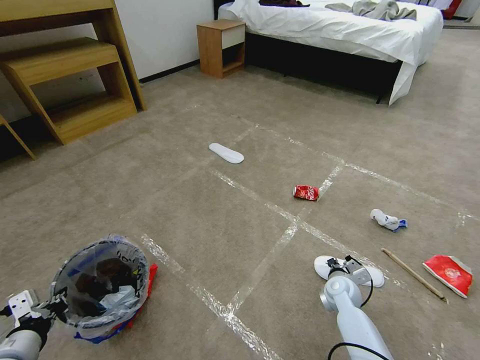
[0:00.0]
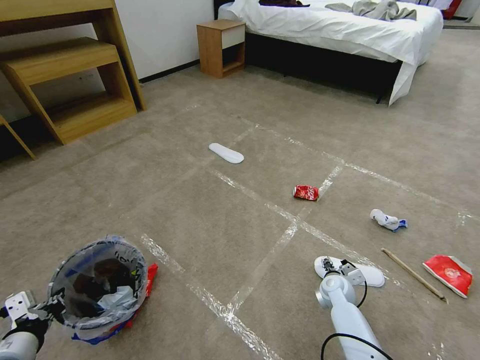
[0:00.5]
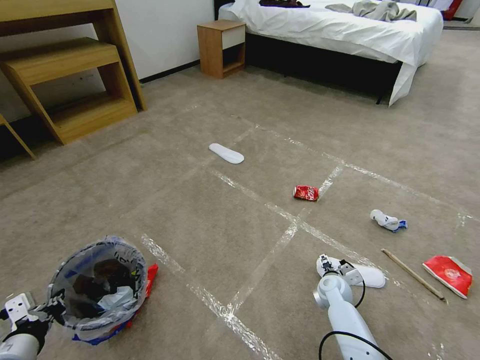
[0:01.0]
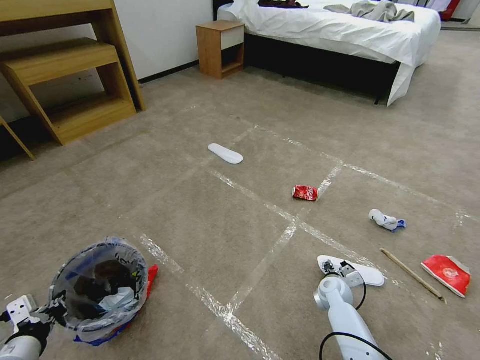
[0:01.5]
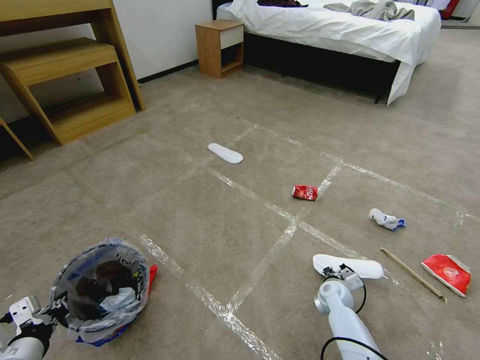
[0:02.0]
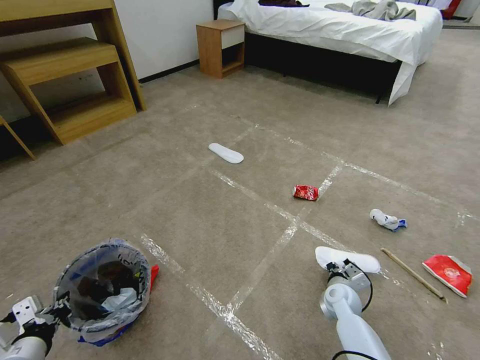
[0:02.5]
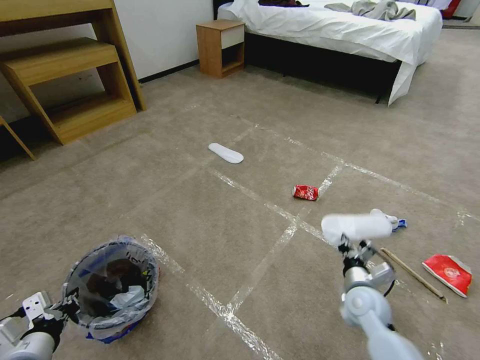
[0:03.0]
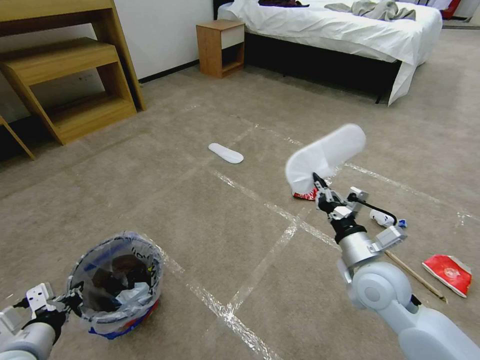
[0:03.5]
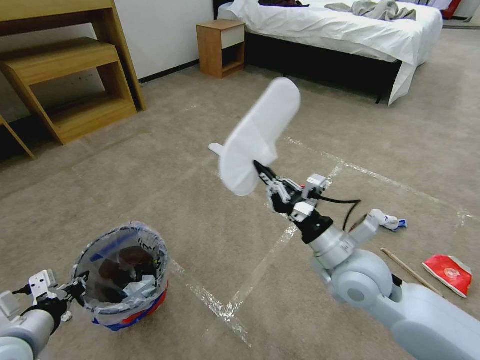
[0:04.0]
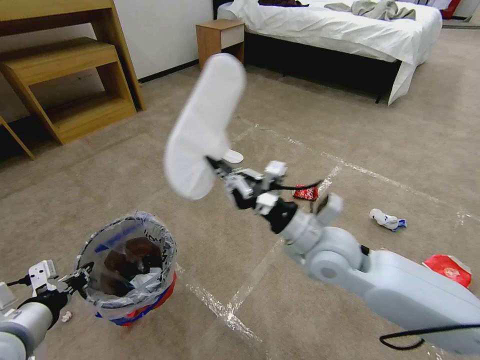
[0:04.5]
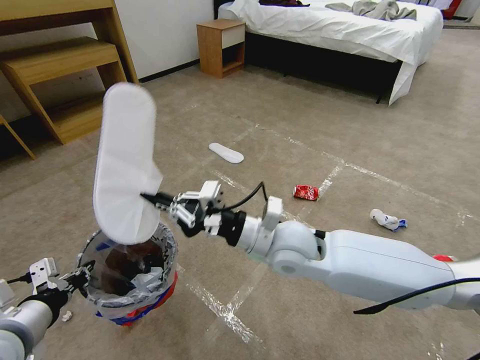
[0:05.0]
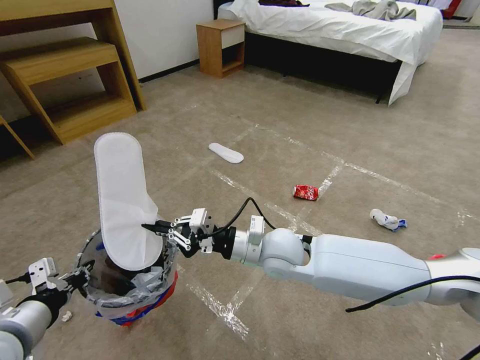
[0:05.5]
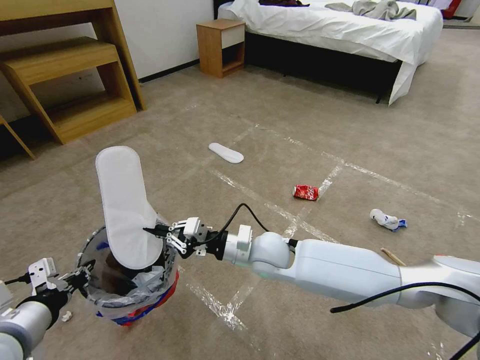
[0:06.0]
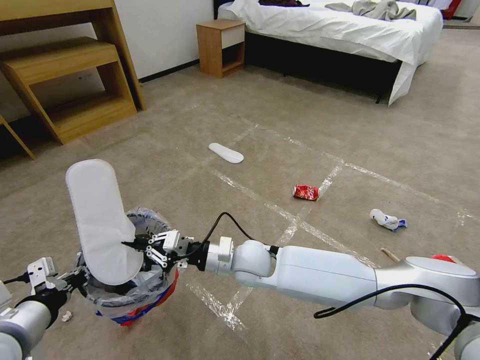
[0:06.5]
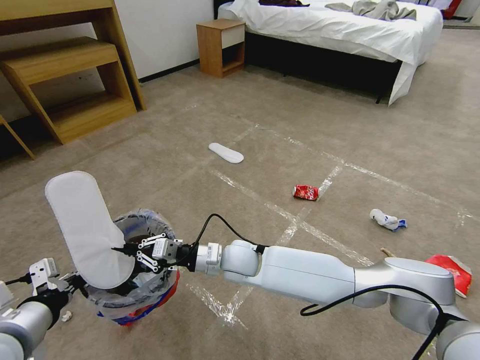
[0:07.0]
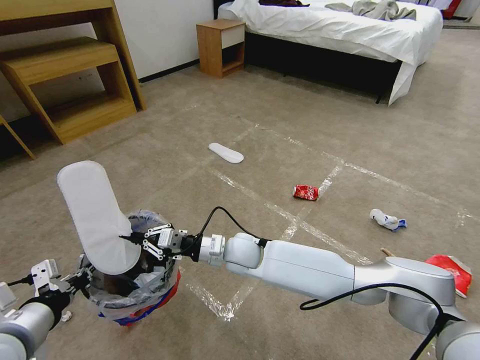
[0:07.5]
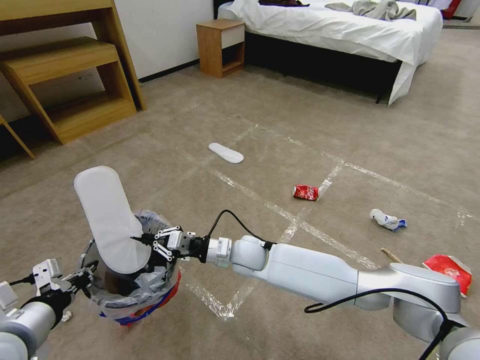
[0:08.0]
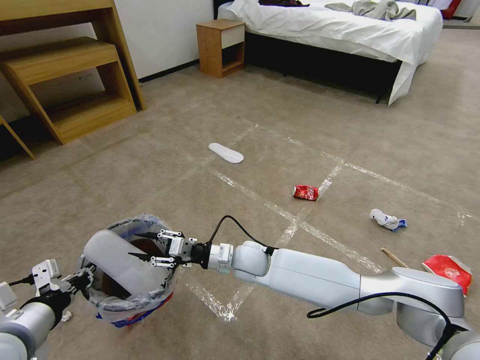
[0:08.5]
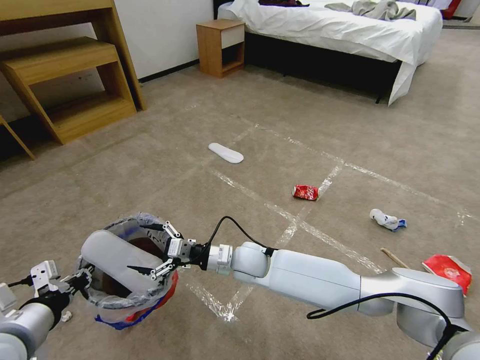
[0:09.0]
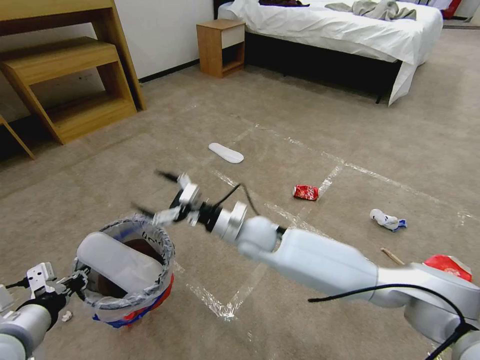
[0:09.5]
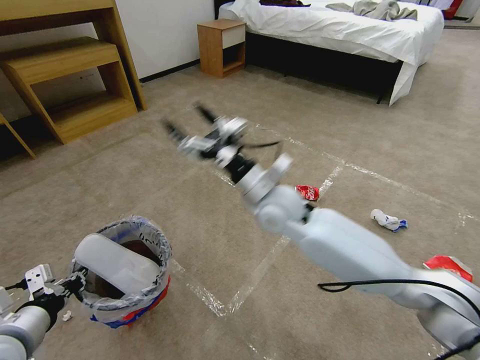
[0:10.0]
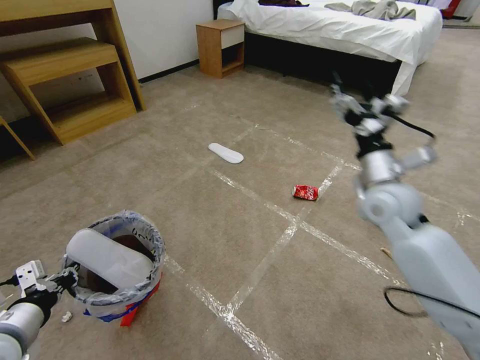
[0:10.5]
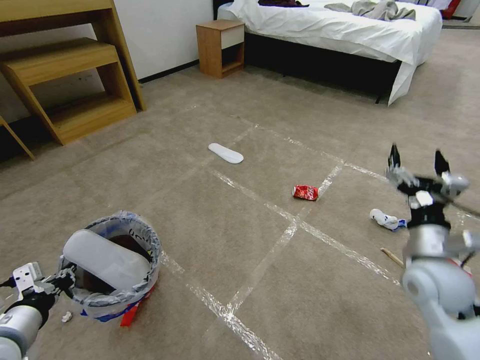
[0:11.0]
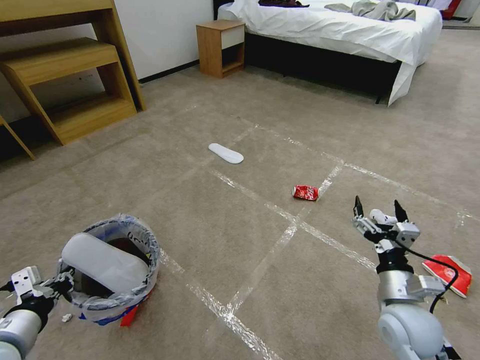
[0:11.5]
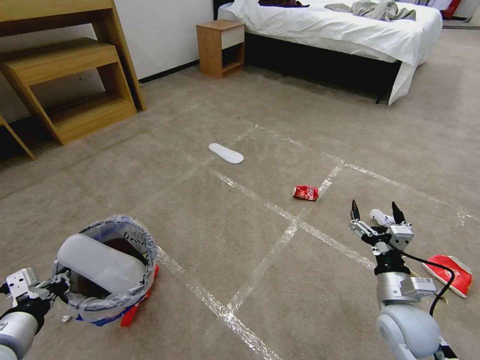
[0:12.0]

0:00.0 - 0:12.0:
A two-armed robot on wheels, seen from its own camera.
Task of the whole recording: Pick up the trash bin and place the garbage on the floor into it.
0:00.0 - 0:02.0: The right gripper opens, then closes once more.
0:02.0 - 0:04.0: The left gripper shifts some 5 cm upward. The right gripper heads upward, covering about 30 cm.
0:04.0 - 0:06.0: The right gripper moves to the left, forward and downward, some 20 cm.
0:06.0 - 0:08.0: The right gripper heads downward, covering approximately 5 cm.
0:08.0 - 0:10.0: The right gripper travels upward by some 15 cm, and opens up.
0:10.0 - 0:12.0: The right gripper heads to the right, backward and downward, covering roughly 35 cm.

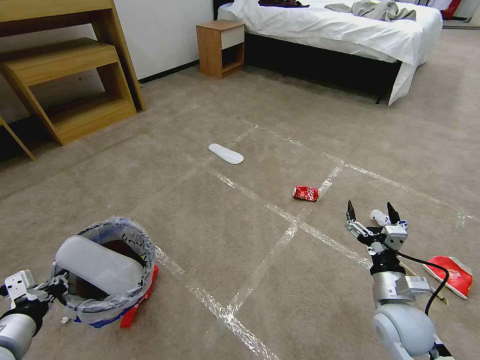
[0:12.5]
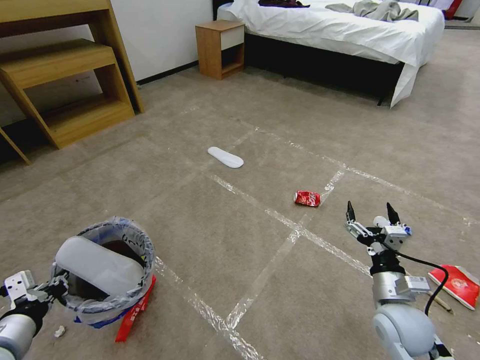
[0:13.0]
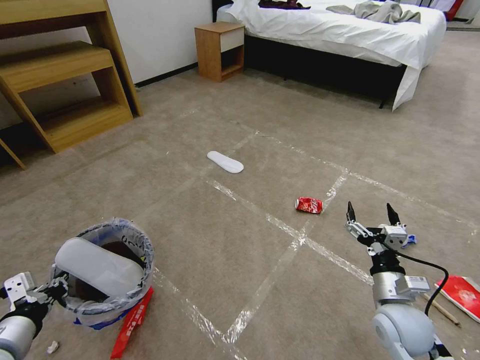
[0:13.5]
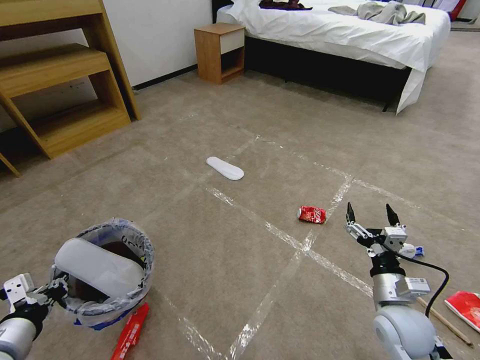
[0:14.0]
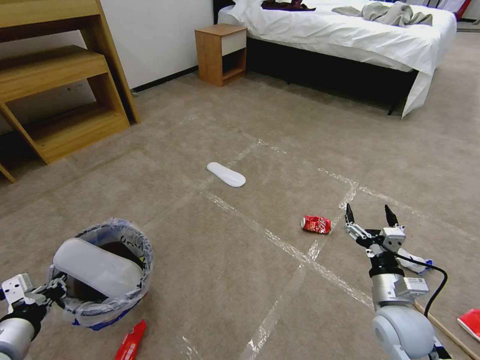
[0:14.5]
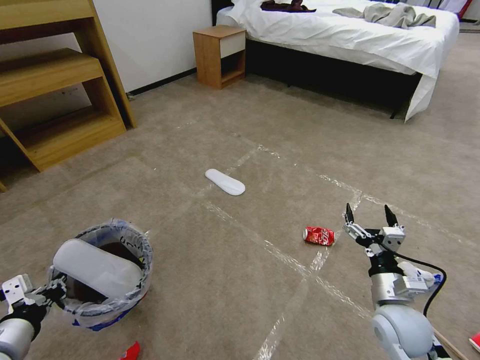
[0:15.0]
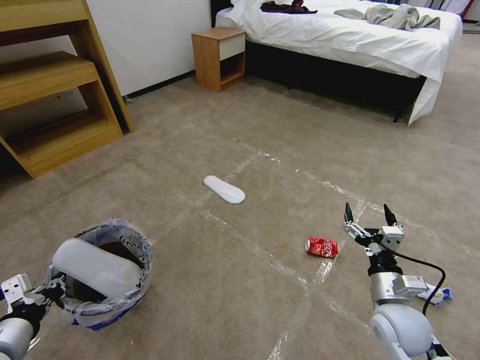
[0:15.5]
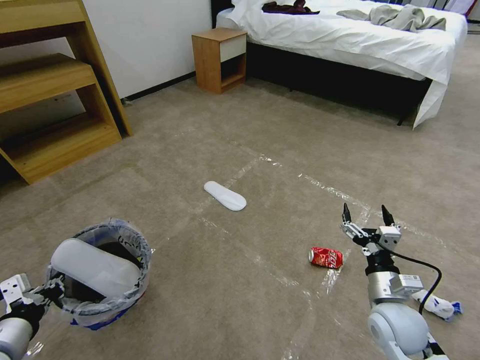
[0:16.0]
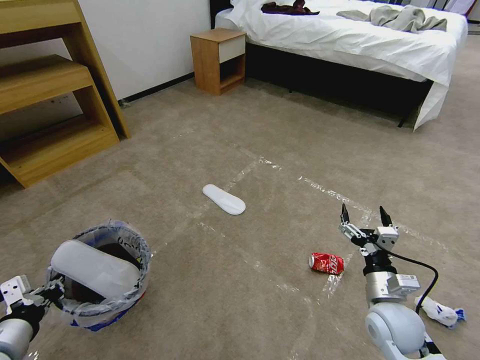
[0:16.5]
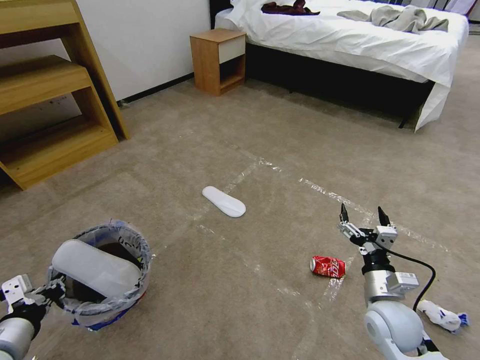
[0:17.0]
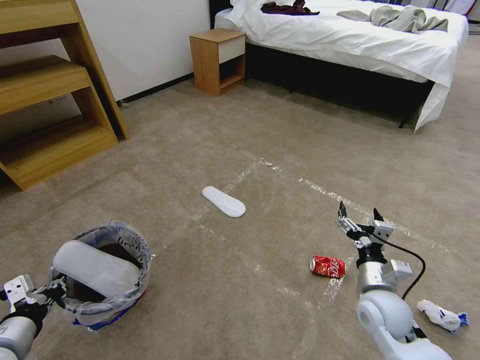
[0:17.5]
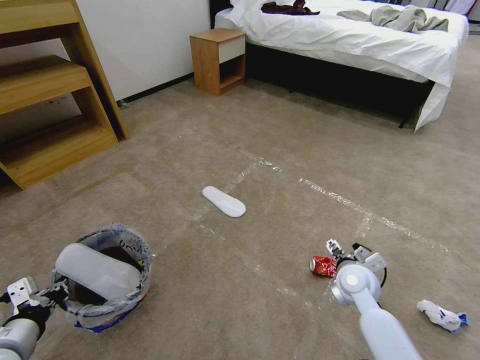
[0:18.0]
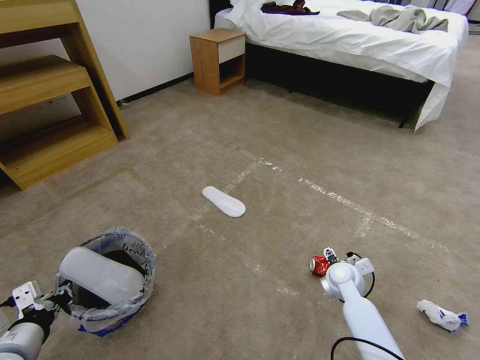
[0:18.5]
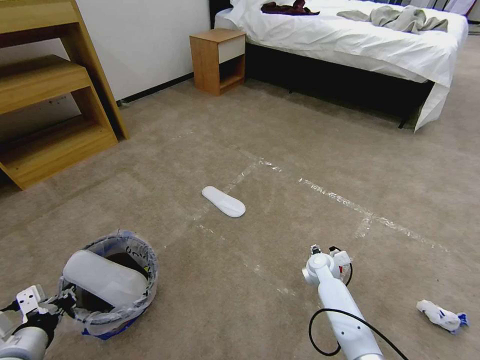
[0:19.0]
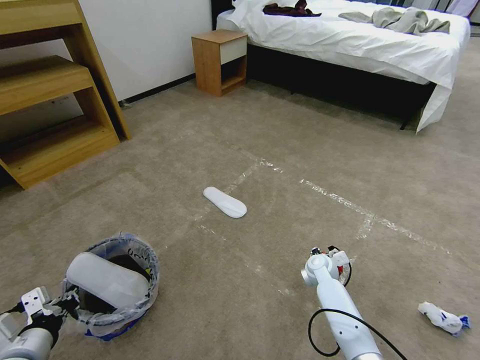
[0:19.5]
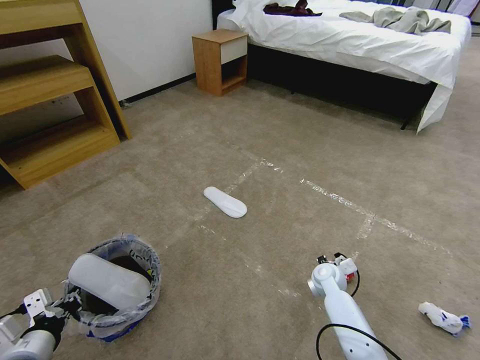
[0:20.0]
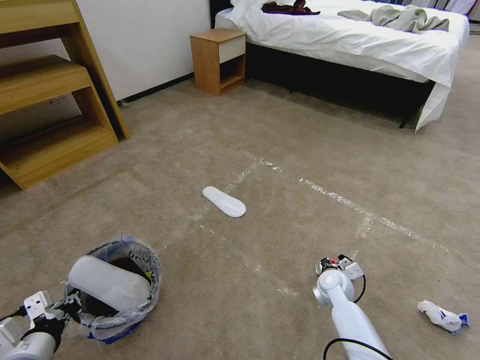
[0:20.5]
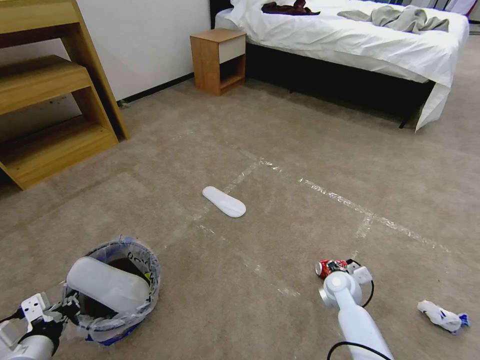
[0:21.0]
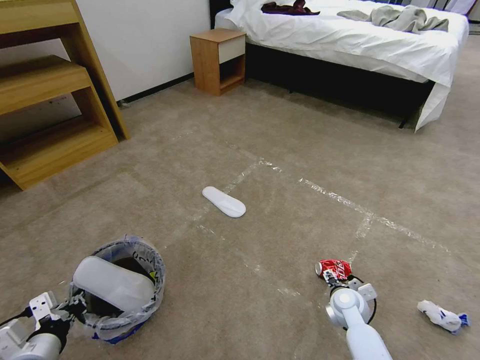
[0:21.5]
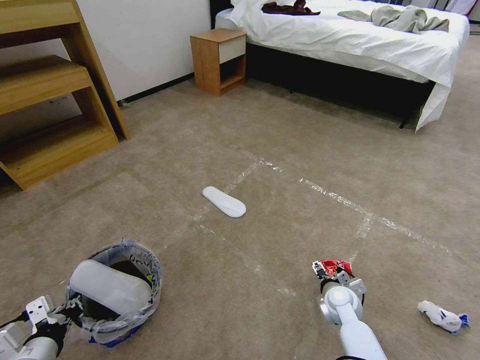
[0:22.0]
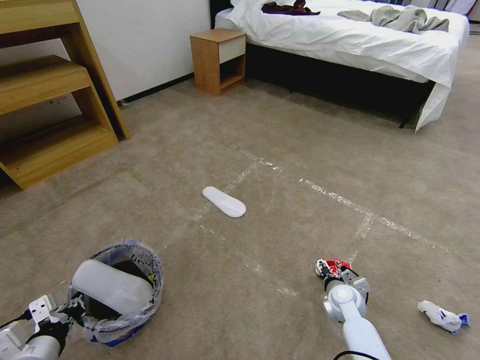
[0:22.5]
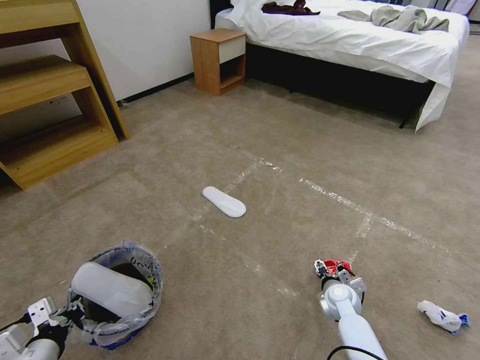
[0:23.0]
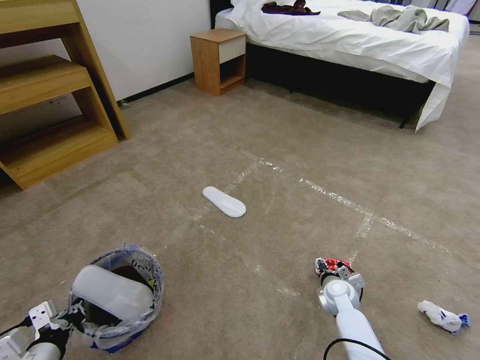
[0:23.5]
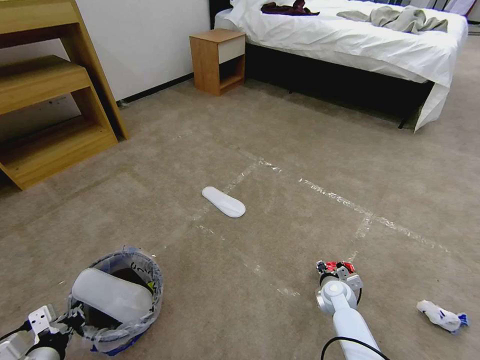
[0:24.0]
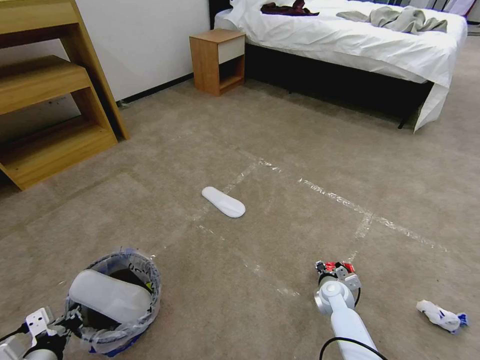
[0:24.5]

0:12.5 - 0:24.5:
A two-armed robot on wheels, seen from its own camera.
Task of the whole recording: Pick up the trash bin and place the garbage on the floor into it.
0:16.5 - 0:18.5: The right gripper moves forward and downward, about 15 cm.
0:18.5 - 0:20.5: The right gripper closes.
0:20.5 - 0:22.5: The right gripper opens.
0:22.5 - 0:24.5: The right gripper closes up.

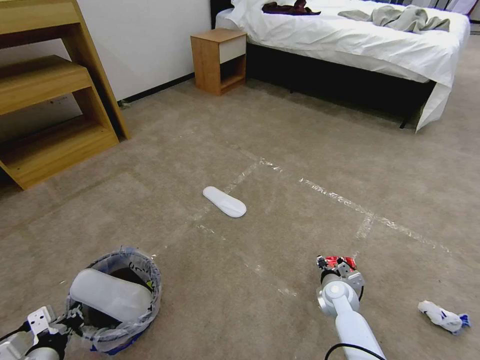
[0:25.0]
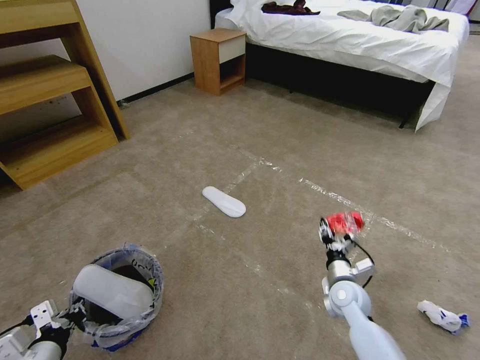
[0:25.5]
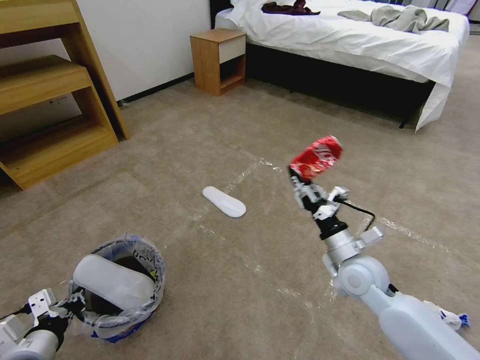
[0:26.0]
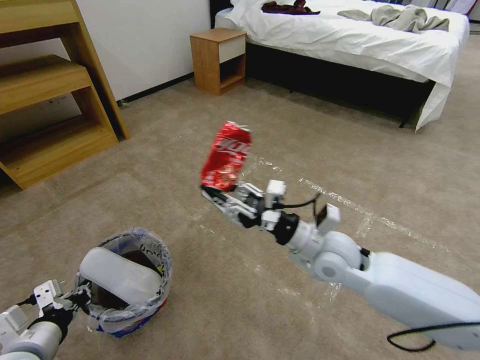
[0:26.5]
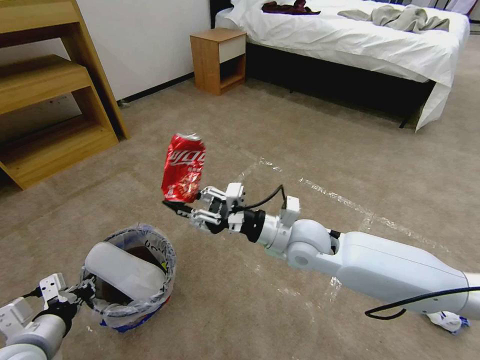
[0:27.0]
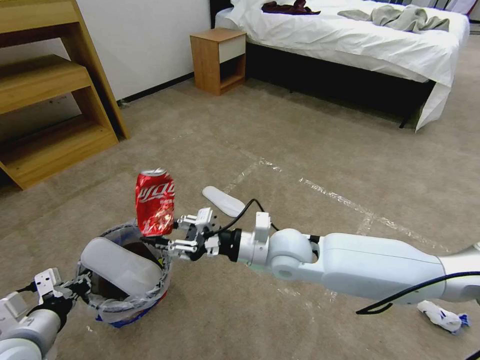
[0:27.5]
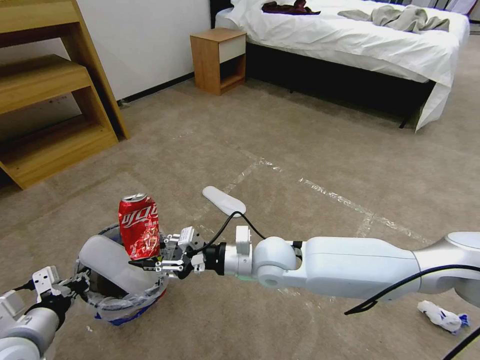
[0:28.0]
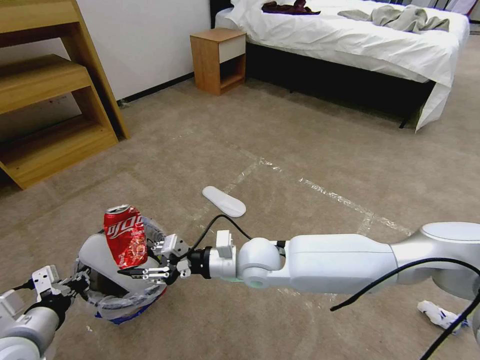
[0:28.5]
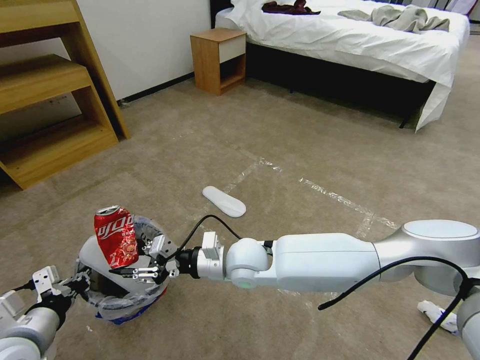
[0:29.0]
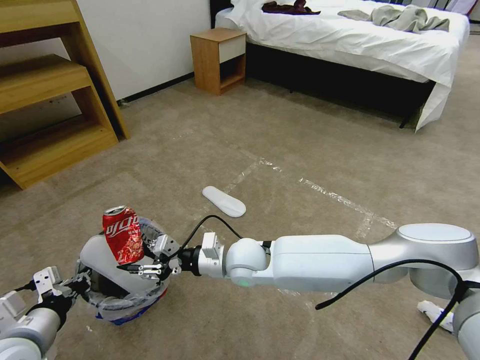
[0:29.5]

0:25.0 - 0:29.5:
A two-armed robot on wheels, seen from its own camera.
Task of the whole recording: Pick up the trash bin and place the garbage on the floor into it.
0:25.0 - 0:27.0: The left gripper shifts roughly 5 cm upward, while the right gripper travels upward and to the left by roughly 30 cm.
0:27.0 - 0:29.5: The right gripper travels to the left and downward by about 15 cm.
